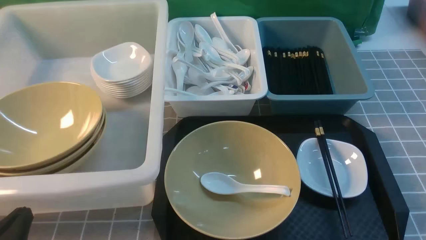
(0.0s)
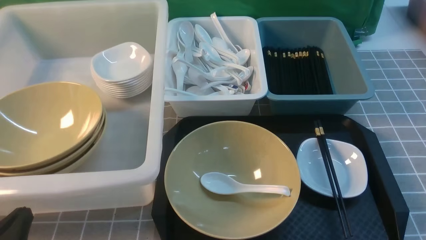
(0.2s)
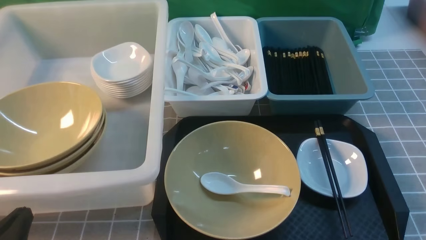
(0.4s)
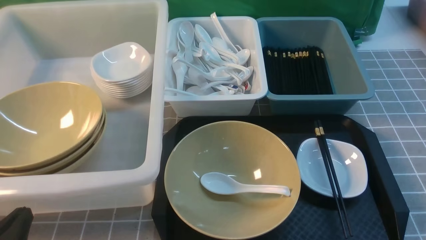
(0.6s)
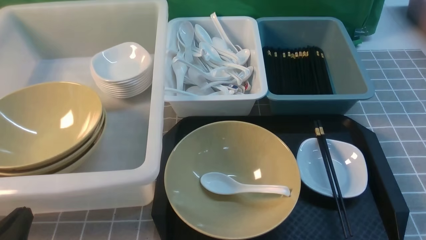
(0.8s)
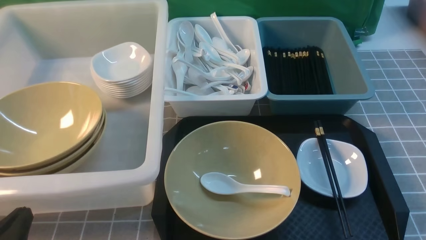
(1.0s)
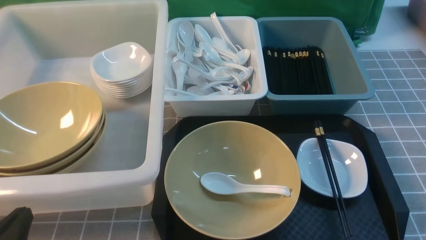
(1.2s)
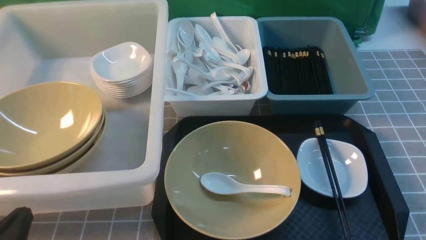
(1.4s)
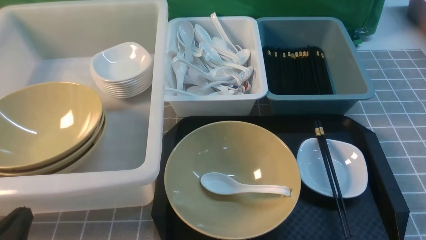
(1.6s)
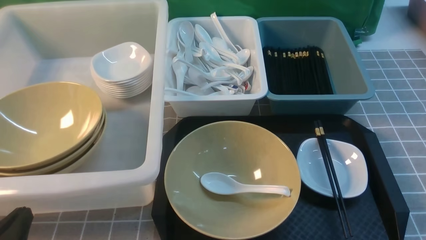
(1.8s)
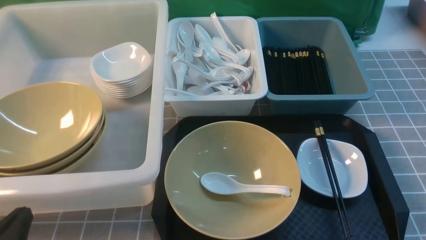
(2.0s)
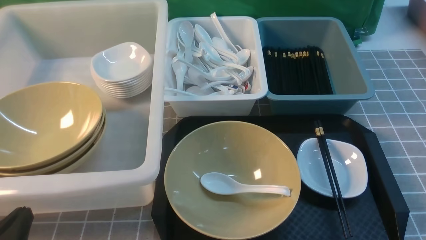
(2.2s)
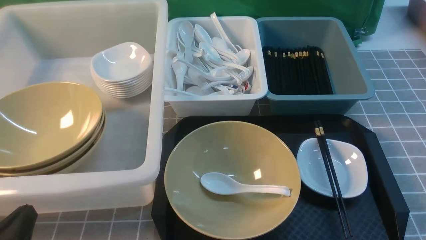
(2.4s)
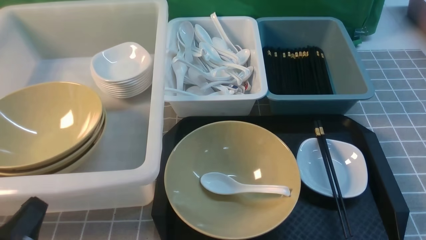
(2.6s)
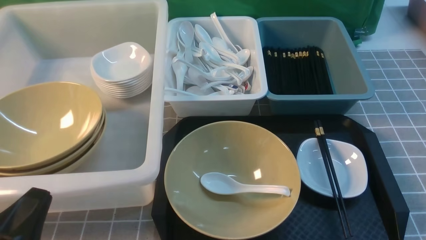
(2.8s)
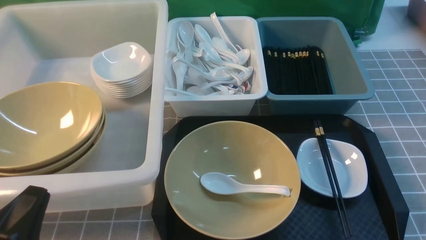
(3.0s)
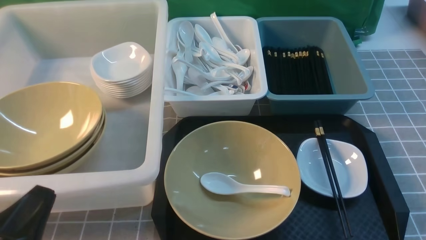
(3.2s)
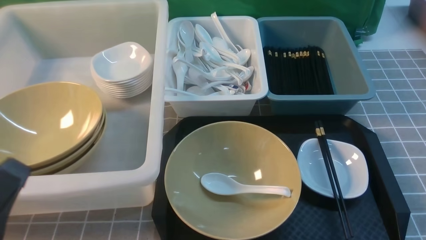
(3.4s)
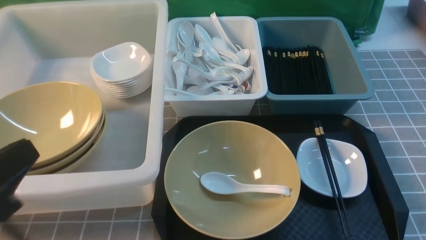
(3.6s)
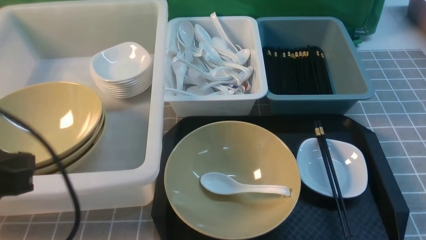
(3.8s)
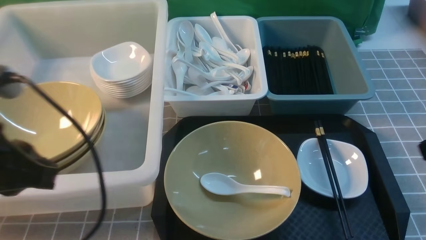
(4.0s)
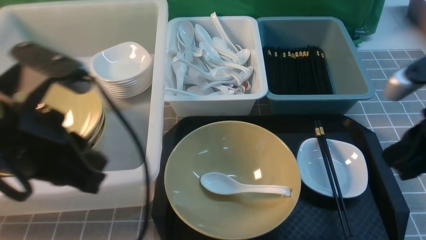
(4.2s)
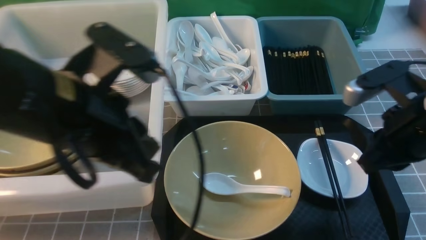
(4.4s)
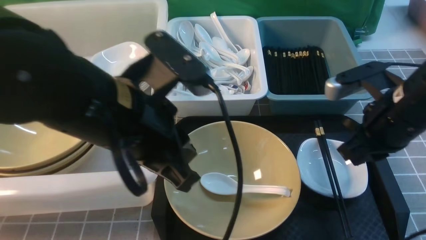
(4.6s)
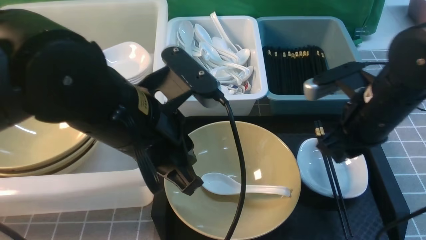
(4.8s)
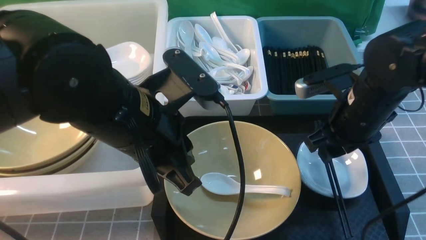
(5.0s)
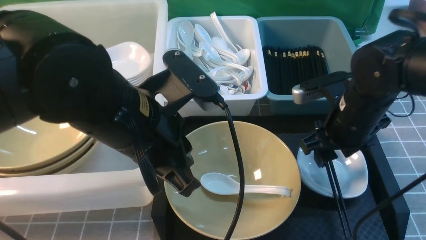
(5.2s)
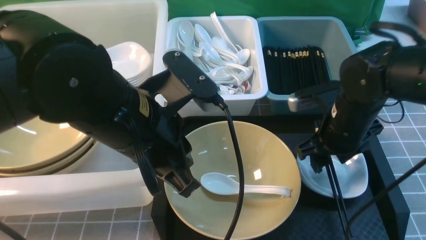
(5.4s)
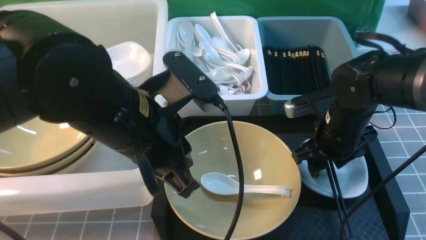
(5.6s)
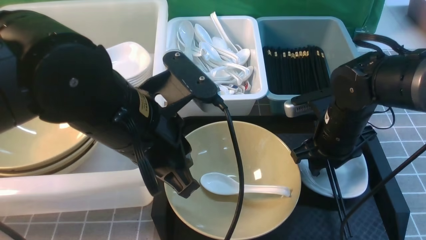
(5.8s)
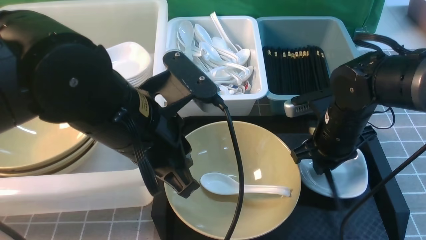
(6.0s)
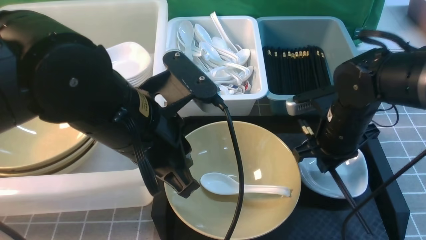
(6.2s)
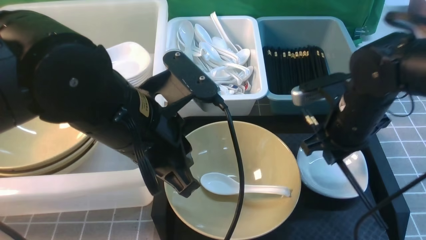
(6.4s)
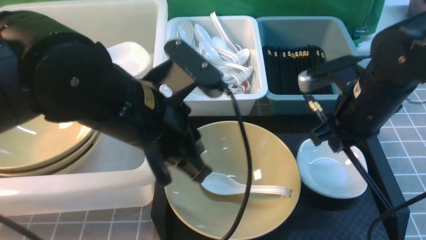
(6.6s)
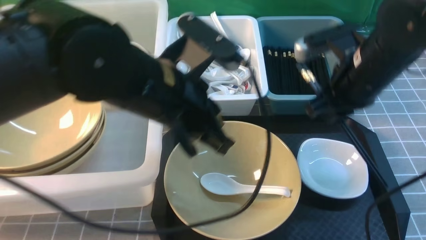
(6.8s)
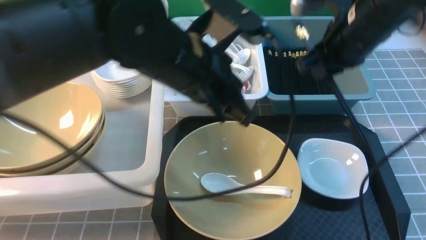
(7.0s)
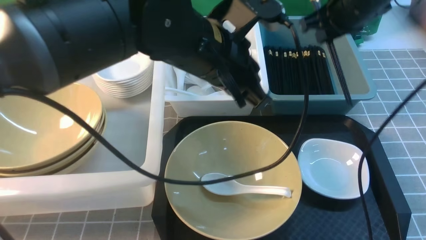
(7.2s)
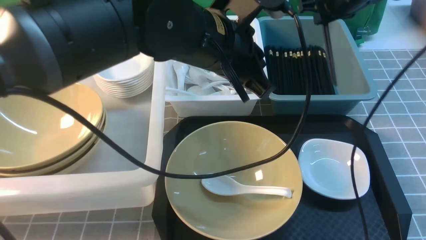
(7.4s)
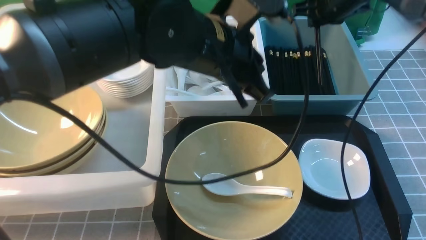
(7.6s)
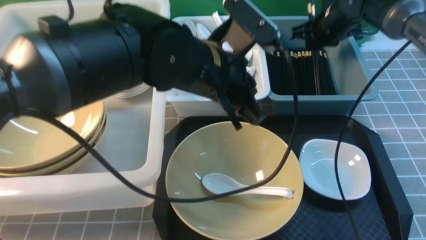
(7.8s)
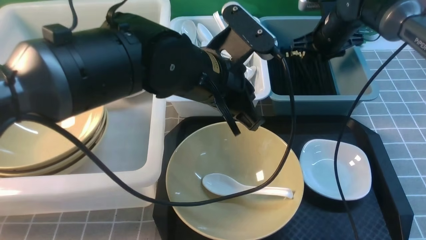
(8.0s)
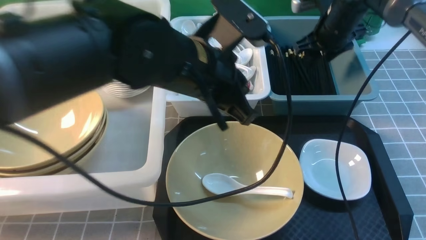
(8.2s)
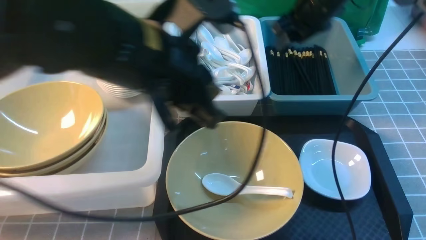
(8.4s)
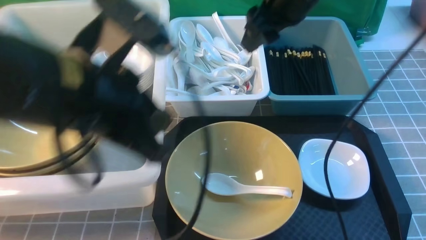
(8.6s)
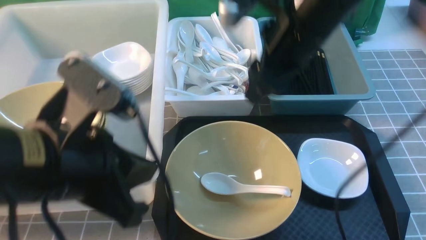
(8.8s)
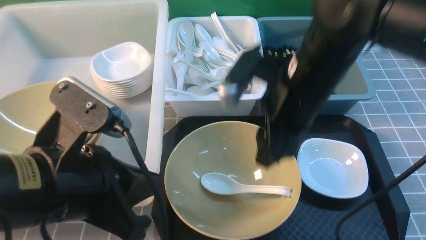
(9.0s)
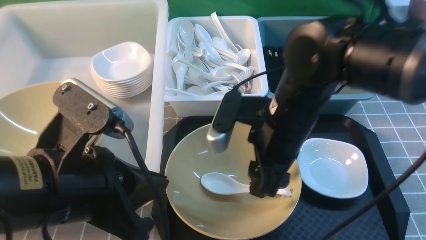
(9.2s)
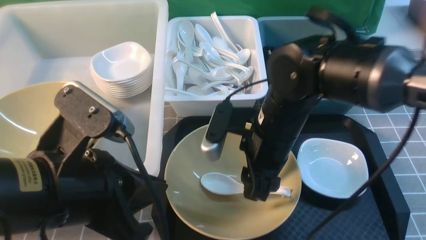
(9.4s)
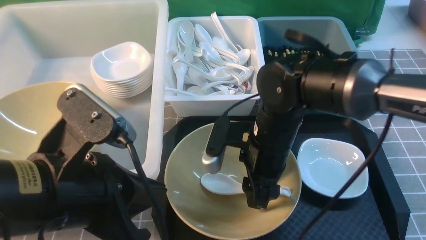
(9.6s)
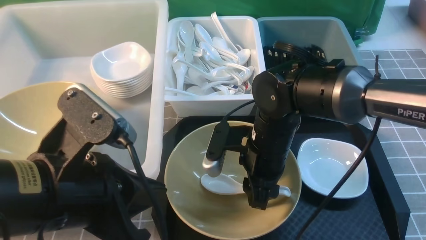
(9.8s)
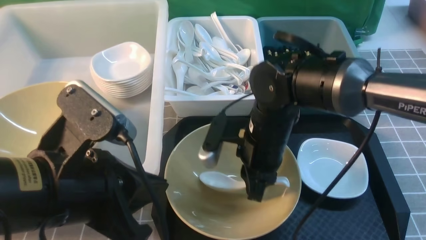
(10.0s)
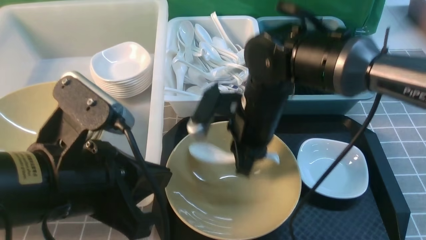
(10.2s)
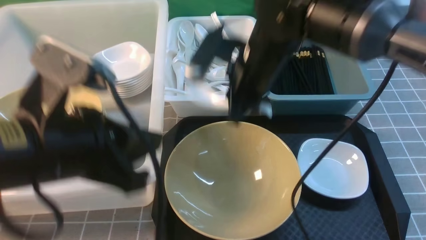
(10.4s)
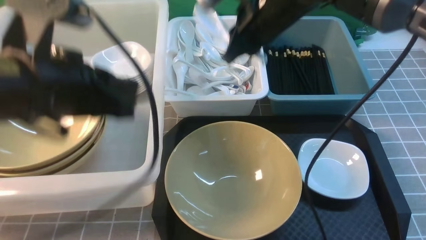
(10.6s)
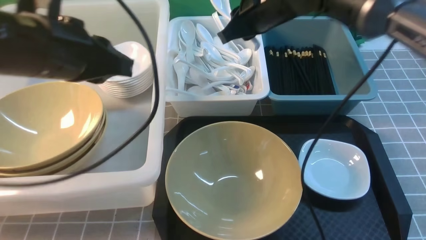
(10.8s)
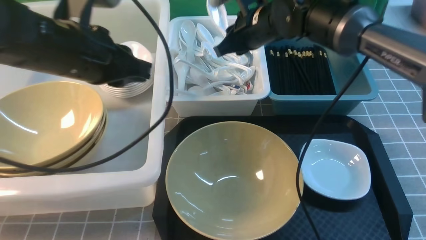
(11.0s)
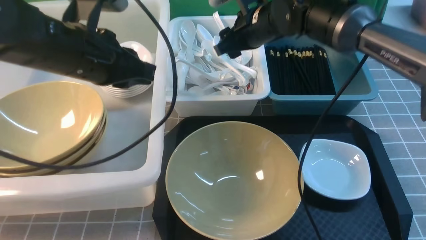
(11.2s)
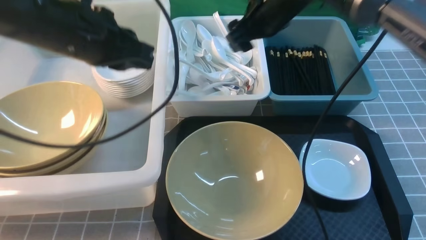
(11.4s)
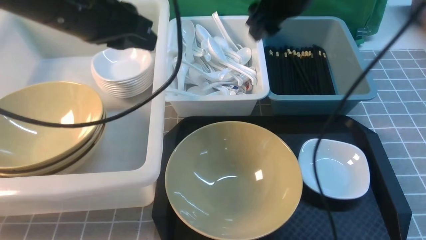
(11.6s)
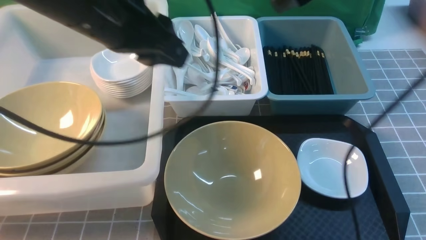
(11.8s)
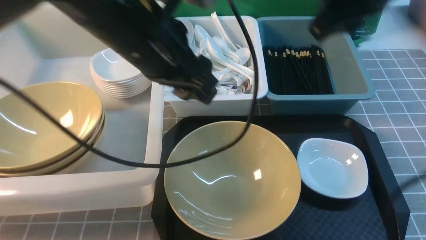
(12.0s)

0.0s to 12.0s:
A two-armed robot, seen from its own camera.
Task of the whole recording: on grey table put chopsticks spoon bowls plates into blue grey white boxes.
Step, 0.0s to 6.4s: use the right arm to grab the chopsticks.
Step, 6.8s to 8.2s: use the right arm to put the chopsticks into the small storage box on the right.
Step, 8.6s to 10.2s: use the right arm to grab the soup spoon in the middle.
Step, 10.4s to 11.2s: use the right arm to put the soup spoon into the small storage box in the middle.
0.0s to 1.6s: Both grippers stay put.
3.0s to 4.4s: The left gripper travels upward, forward and to the right by some 25 cm; the right gripper is displaced forward, upward and to the left by about 25 cm, and closes up.
4.4s to 6.0s: The left gripper changes place by approximately 5 cm; the right gripper moves downward and forward, some 15 cm, and opens up.
6.0s to 7.6s: The right gripper goes some 20 cm forward and upward. Meanwhile the left gripper heads forward and to the right, covering roughly 10 cm.
7.6s to 9.0s: The grippers both shift backward and to the left by roughly 25 cm. The right gripper opens up.
9.0s to 10.4s: The right gripper shifts about 5 cm forward, travels downward and back again, roughly 10 cm each way, and closes up.
10.4s to 12.0s: The right gripper heads upward, to the right and backward, covering about 20 cm, and opens and closes again. The left gripper moves forward and to the right, roughly 15 cm, and opens up.

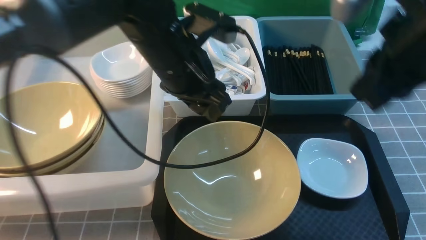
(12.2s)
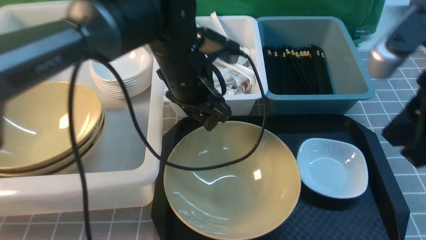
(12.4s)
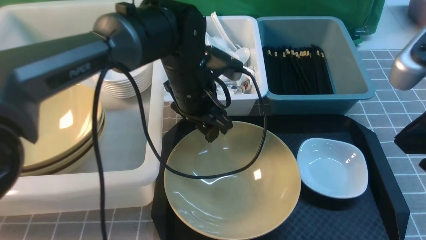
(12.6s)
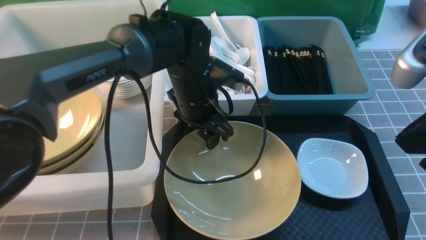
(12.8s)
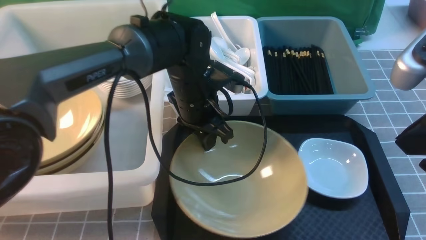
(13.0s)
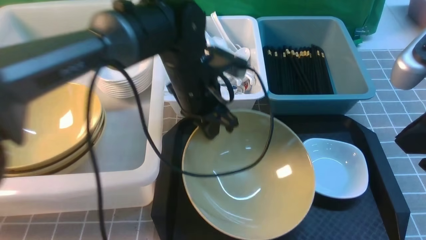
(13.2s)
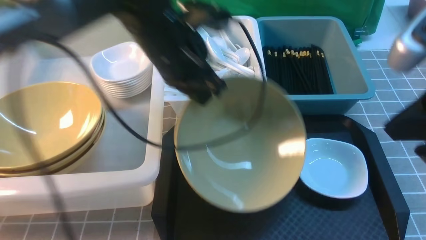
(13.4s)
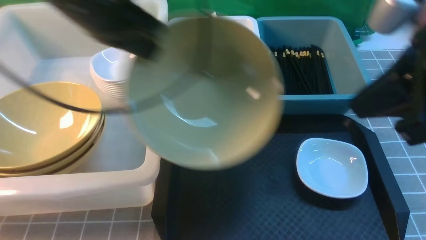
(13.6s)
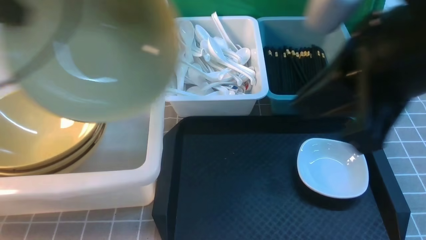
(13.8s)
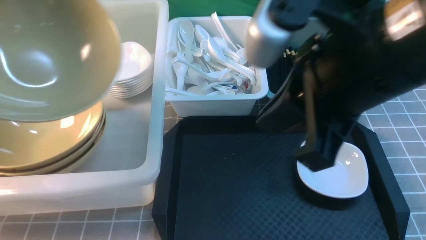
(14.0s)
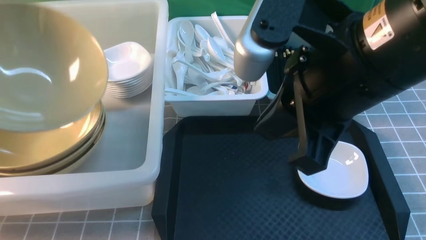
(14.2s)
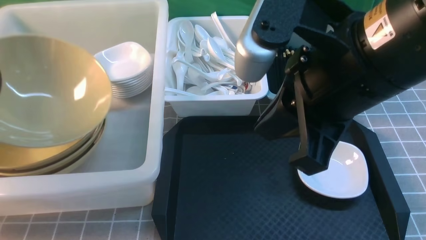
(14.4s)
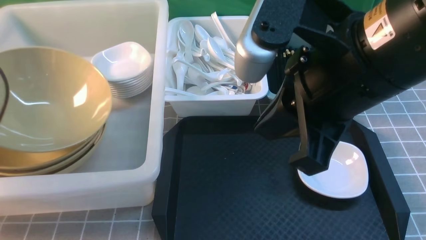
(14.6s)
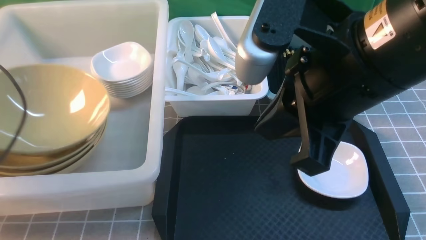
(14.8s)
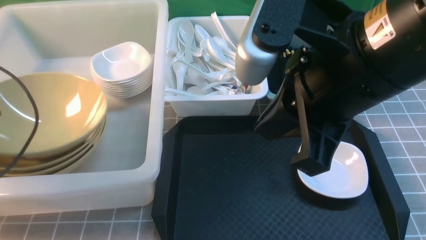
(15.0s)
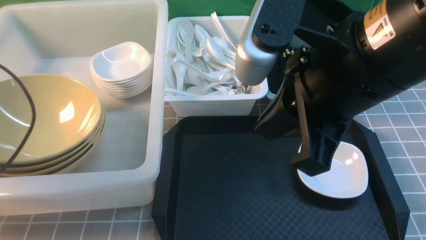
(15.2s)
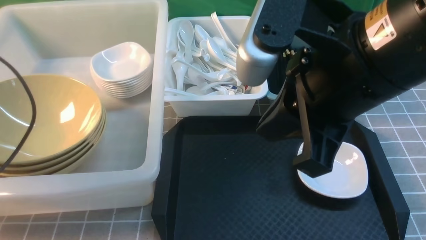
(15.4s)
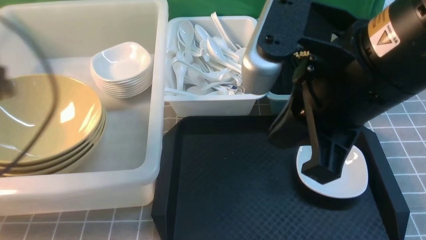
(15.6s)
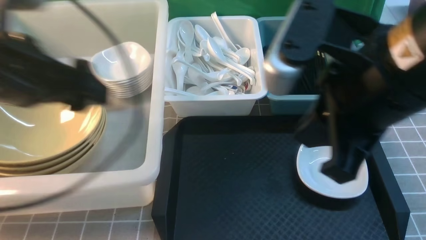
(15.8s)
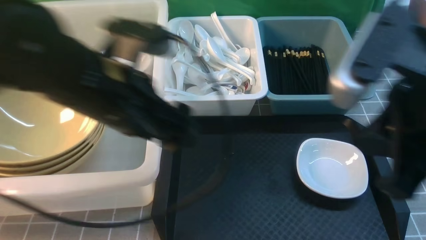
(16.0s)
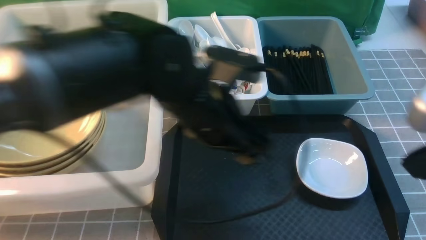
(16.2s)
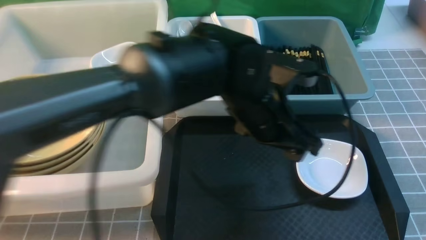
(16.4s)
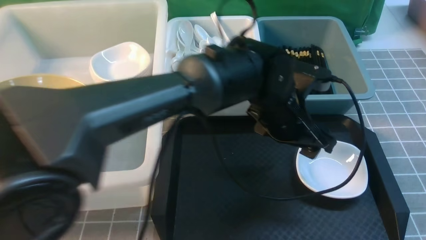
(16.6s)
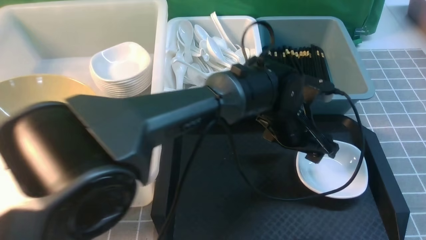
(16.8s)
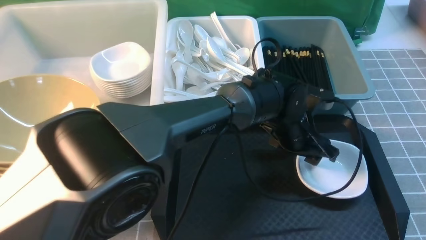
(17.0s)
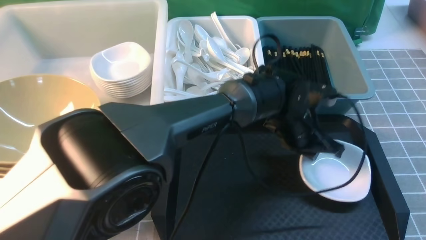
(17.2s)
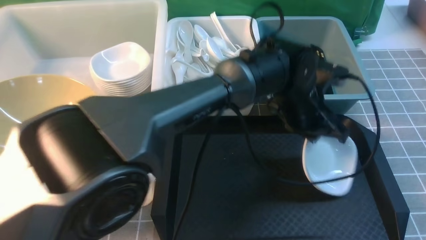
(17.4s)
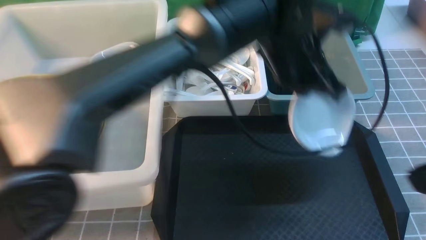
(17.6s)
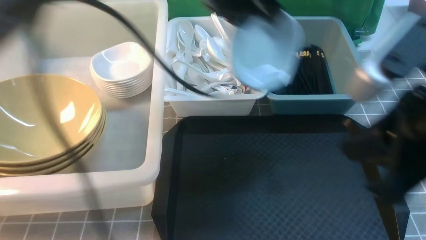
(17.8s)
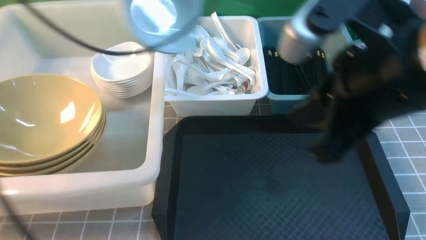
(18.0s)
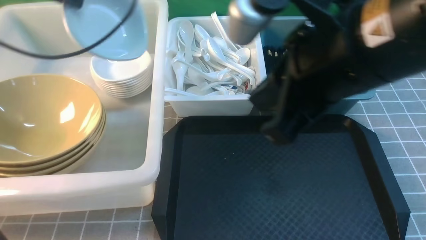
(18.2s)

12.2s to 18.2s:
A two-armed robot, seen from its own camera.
Task of the whole recording: on grey table put chopsticks spoon bowls plates into blue grey white boxes.
Step, 12.2s to 13.2s: use the left arm to grab the yellow noodle bowl on the left.
Step, 13.6s to 15.4s: use the left arm to put the noodle bowl into the large storage box on the left.
Step, 15.8s to 17.4s: use the left arm to grab the plate.
12.2s to 13.8s: The right gripper is displaced to the left by about 5 cm. The left gripper shifts roughly 25 cm to the left and upward, and closes its fingers.
13.8s to 15.2s: The left gripper moves downward and to the left, some 15 cm, and opens up.
15.2s to 16.6s: The right gripper heads to the right and backward, covering roughly 20 cm, while the left gripper heads to the right, covering about 40 cm.
16.6s to 18.2s: The right gripper goes about 20 cm to the left and forward. The left gripper shifts some 35 cm to the left and upward, and closes.
